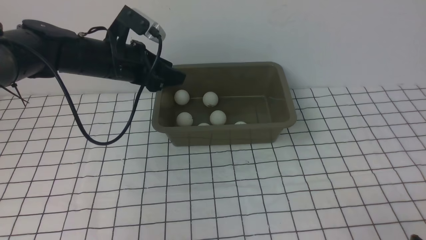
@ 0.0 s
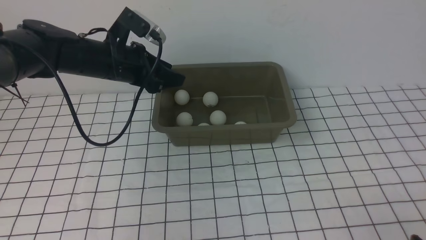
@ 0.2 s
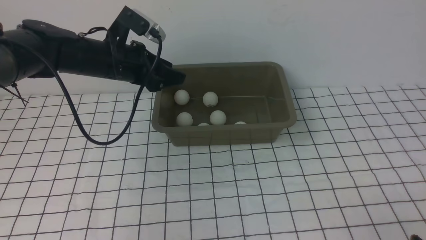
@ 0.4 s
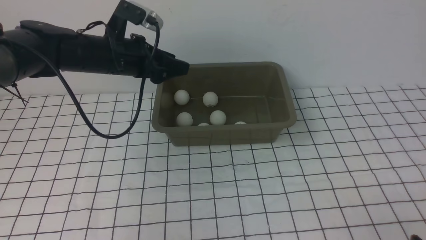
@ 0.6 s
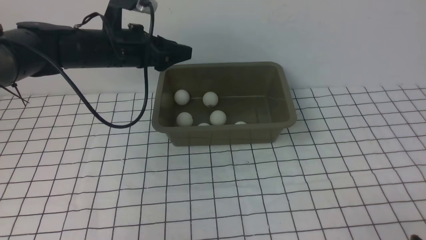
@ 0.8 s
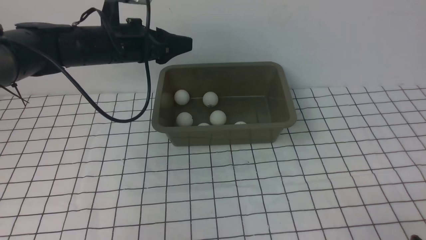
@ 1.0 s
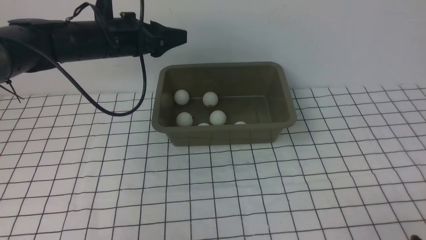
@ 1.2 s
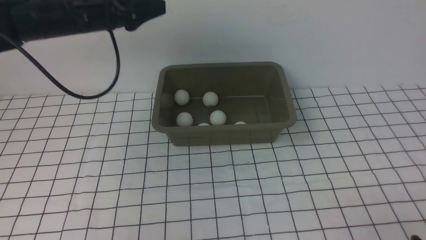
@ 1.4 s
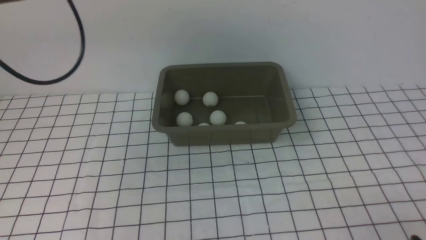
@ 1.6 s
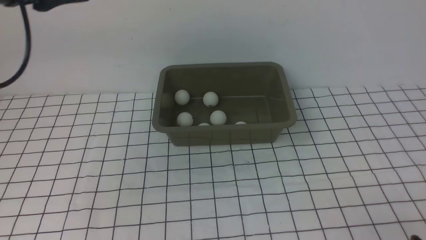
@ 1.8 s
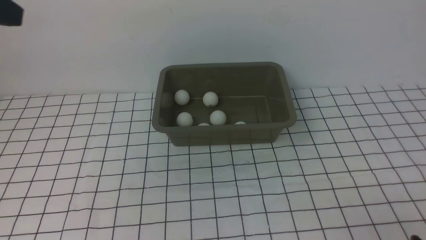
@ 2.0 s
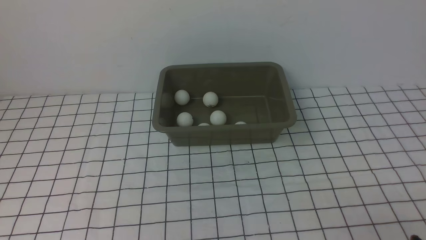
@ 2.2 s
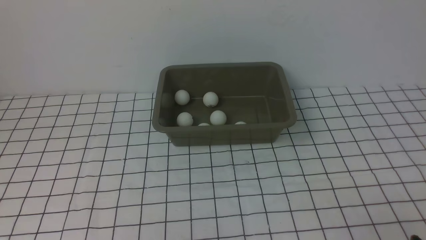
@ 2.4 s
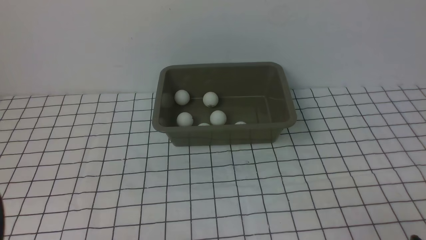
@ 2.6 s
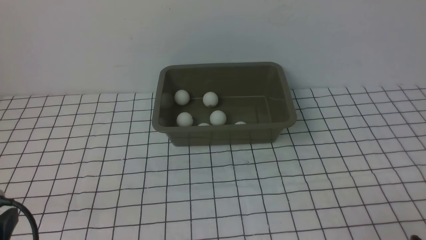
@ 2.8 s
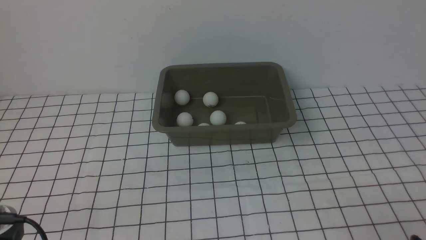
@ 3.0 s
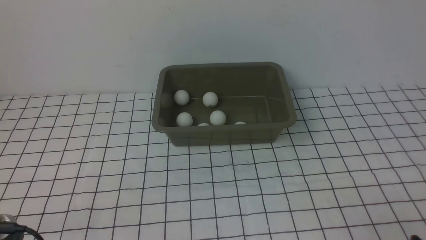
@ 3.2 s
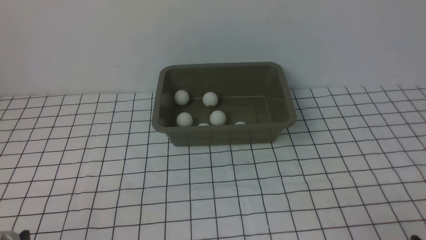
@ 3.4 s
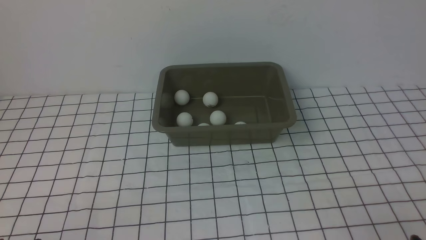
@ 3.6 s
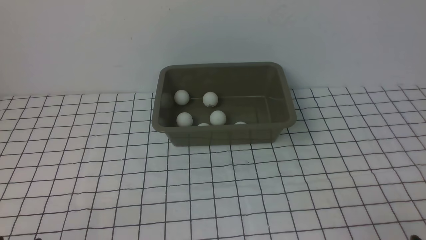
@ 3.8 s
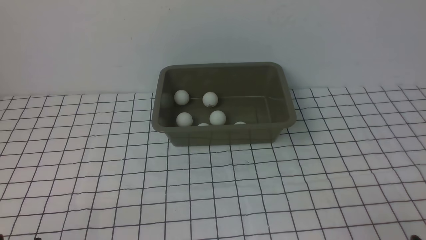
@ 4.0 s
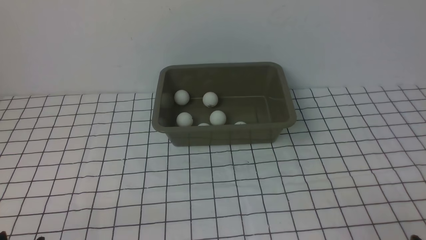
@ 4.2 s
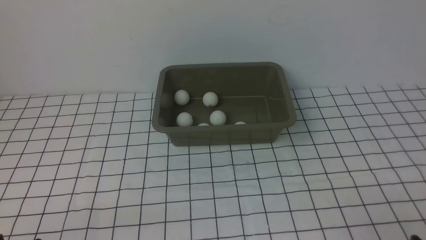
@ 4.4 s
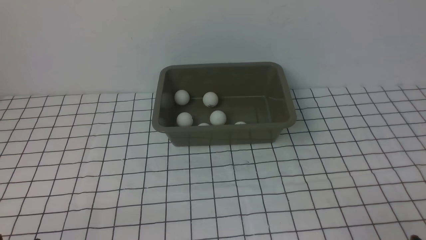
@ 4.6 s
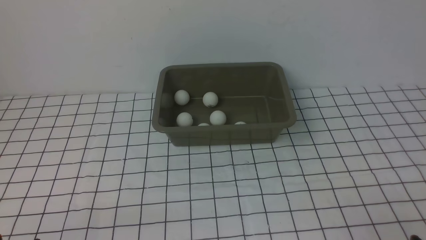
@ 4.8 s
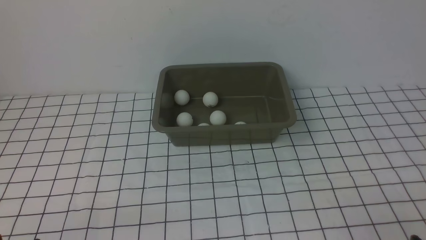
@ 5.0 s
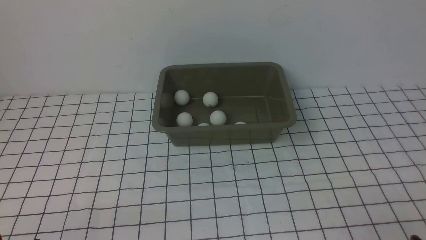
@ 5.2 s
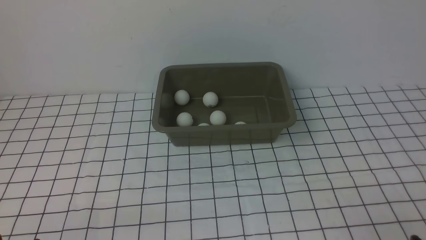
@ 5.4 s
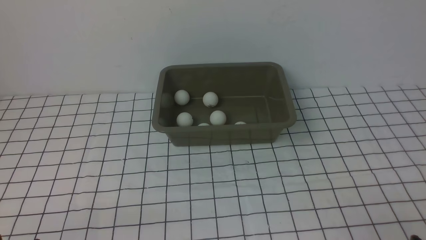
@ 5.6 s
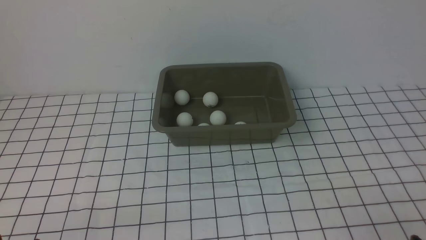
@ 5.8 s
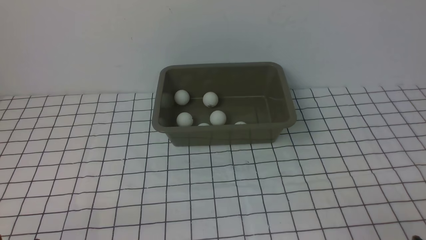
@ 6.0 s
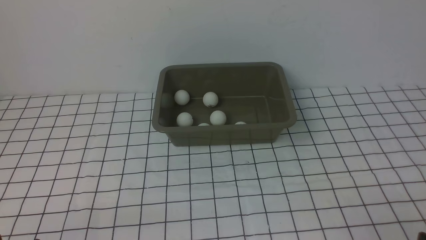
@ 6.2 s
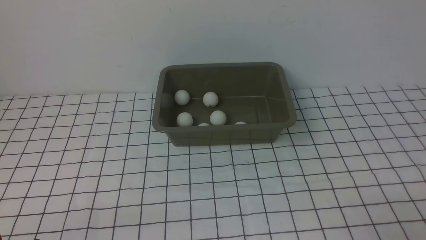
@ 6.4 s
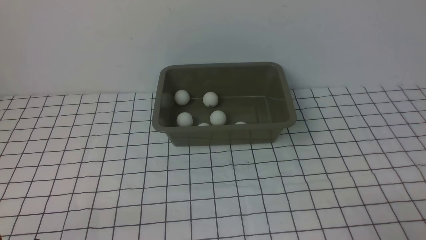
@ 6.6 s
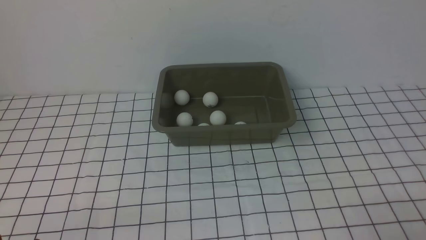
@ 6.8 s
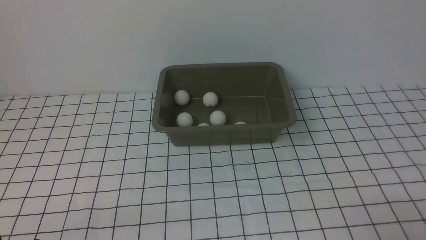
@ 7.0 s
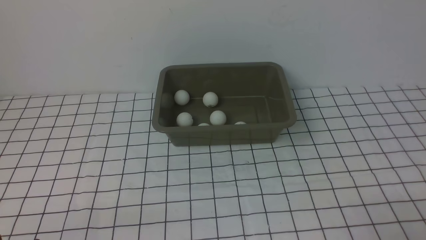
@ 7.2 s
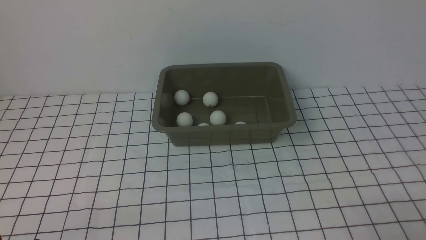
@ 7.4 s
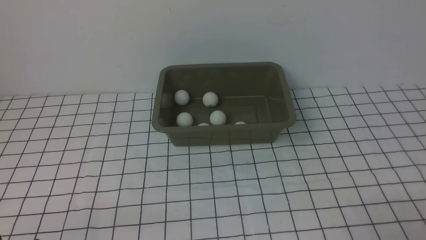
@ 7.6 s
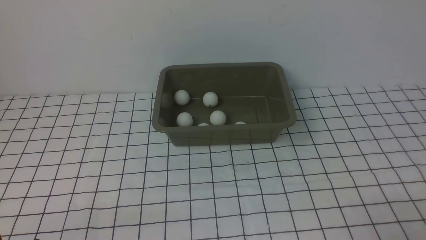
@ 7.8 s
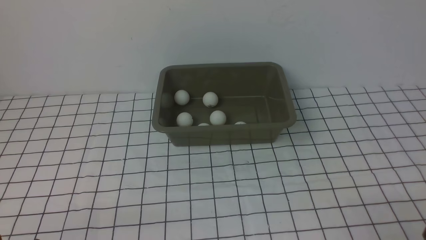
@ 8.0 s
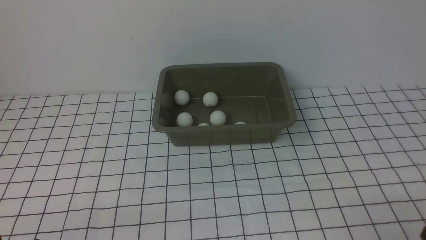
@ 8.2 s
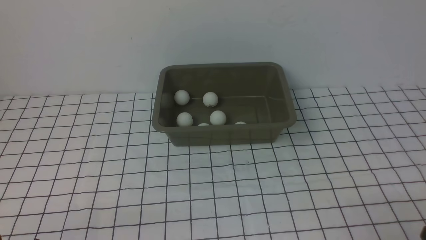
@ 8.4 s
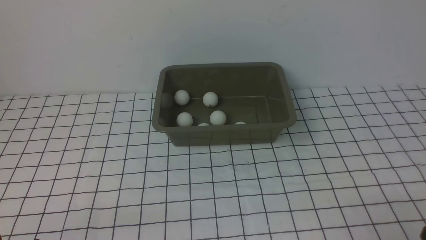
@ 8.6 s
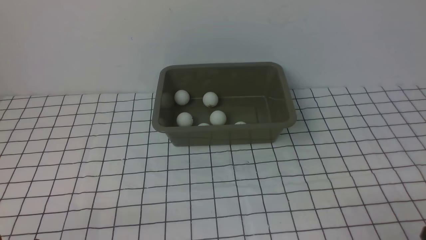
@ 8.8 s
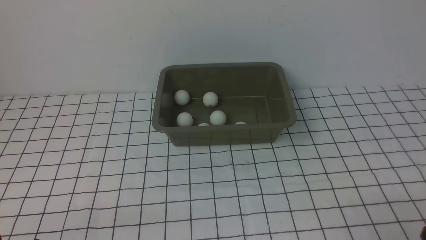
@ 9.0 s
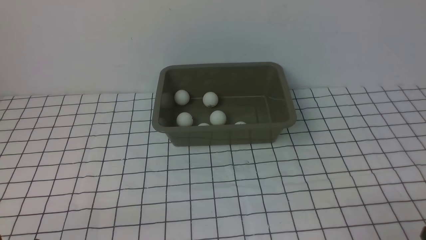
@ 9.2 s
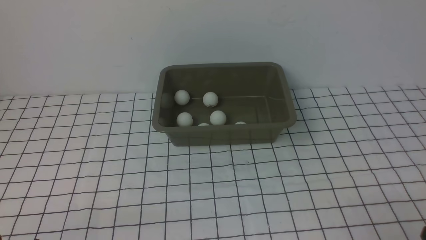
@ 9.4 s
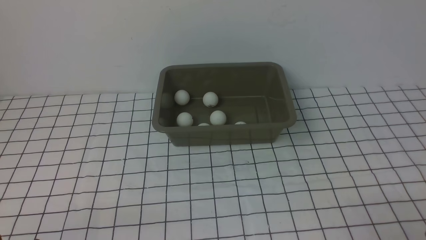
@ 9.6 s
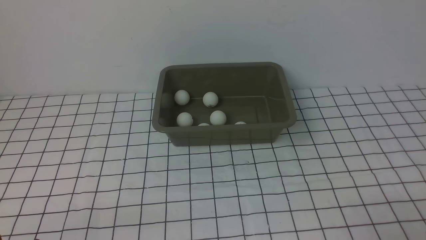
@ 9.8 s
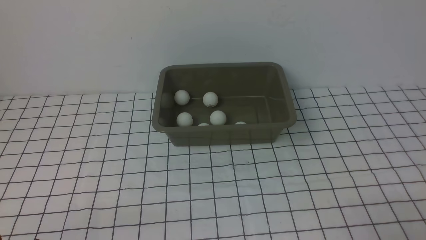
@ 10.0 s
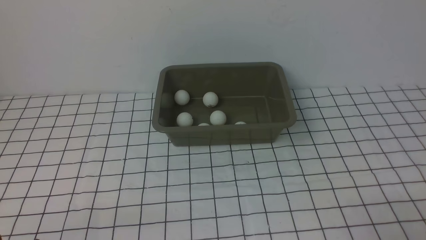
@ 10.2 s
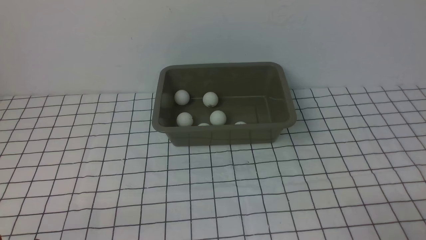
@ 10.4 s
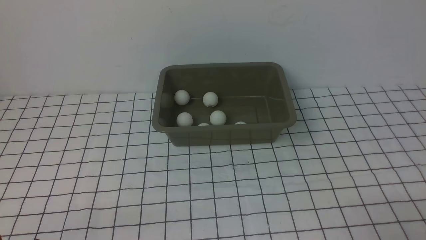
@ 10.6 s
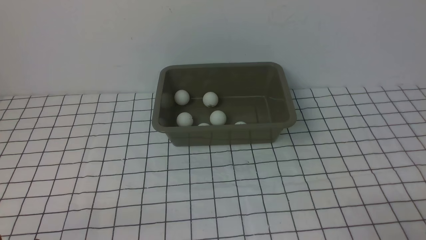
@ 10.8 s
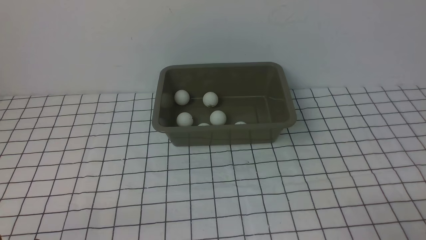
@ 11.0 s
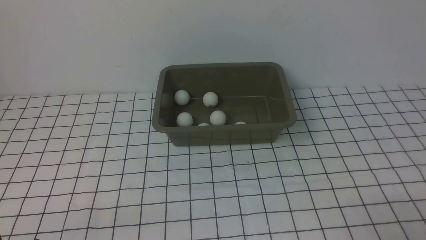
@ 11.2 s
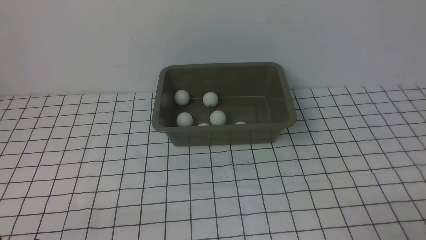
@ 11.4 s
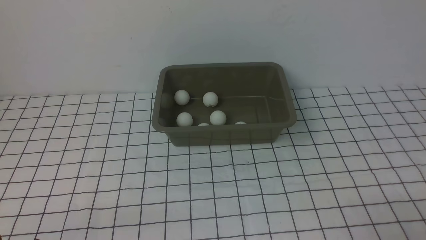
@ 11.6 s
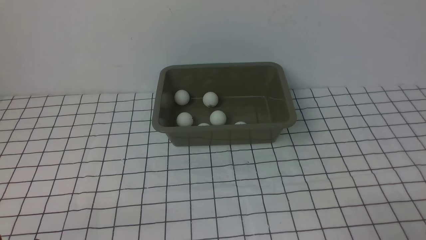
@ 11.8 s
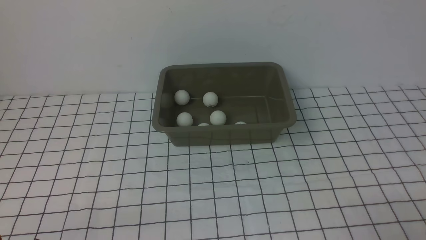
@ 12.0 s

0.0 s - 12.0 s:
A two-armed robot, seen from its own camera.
0.0 s - 1.6 s: The left gripper shifts about 15 cm upward and to the left.
1.6 s - 3.0 s: The left gripper shifts approximately 35 cm backward and downward.
3.0 s - 4.4 s: The left gripper changes place by roughly 5 cm.
4.4 s - 6.0 s: Both grippers stay put.
10.4 s - 12.0 s: Both grippers stay put.

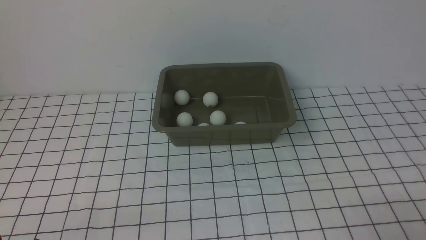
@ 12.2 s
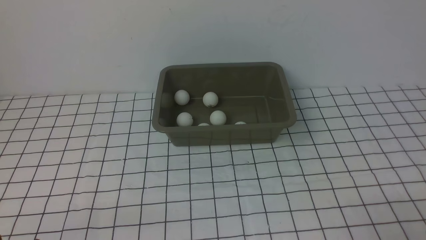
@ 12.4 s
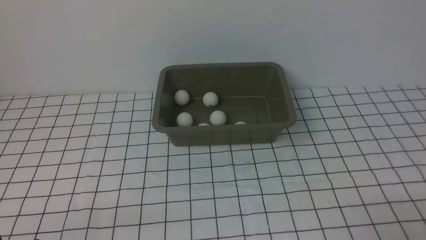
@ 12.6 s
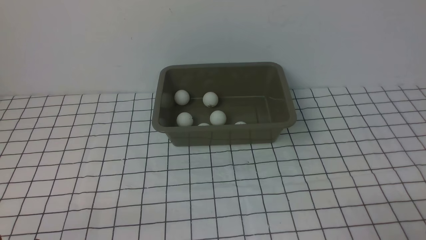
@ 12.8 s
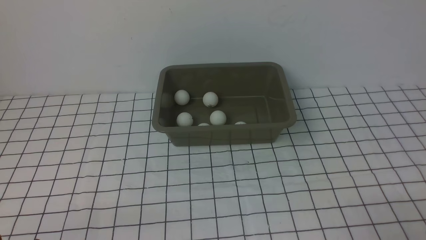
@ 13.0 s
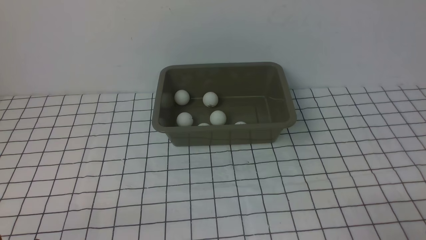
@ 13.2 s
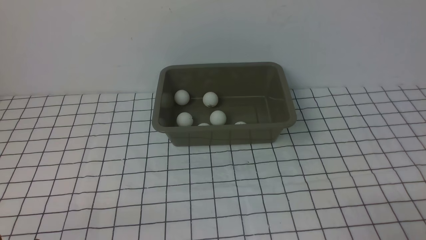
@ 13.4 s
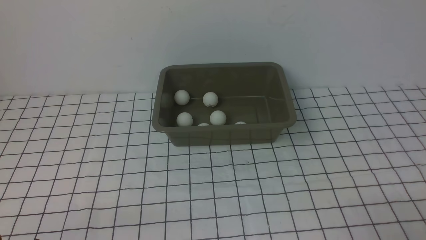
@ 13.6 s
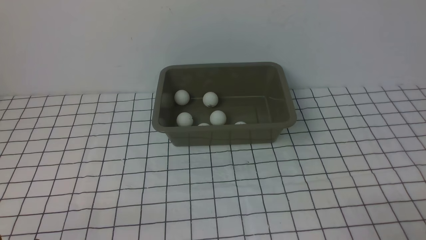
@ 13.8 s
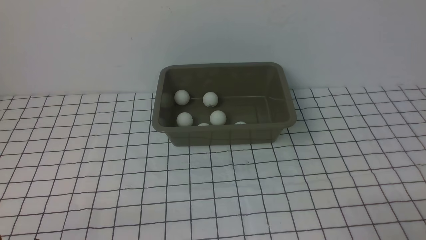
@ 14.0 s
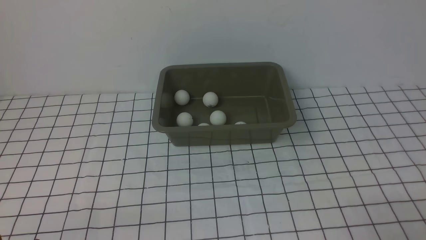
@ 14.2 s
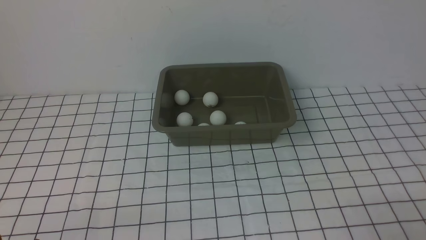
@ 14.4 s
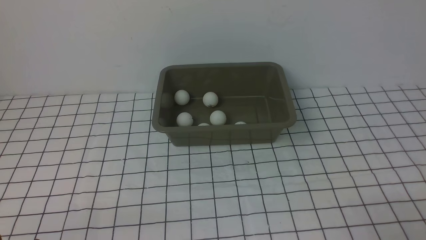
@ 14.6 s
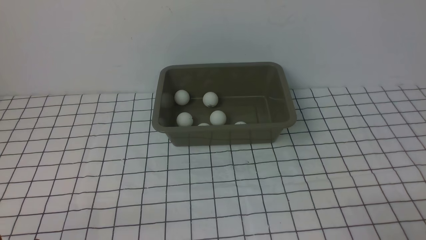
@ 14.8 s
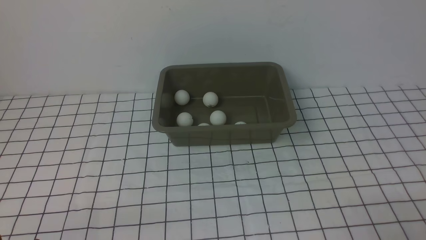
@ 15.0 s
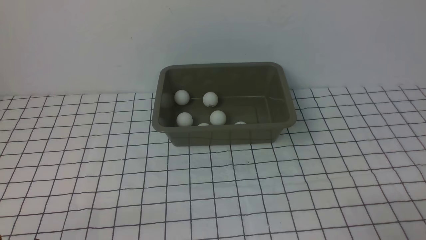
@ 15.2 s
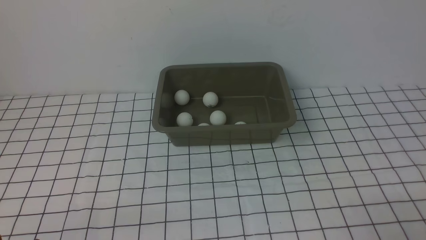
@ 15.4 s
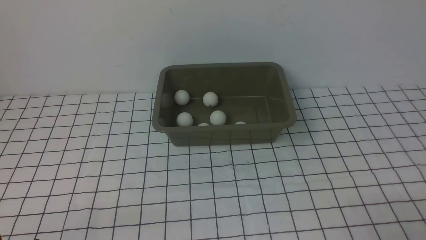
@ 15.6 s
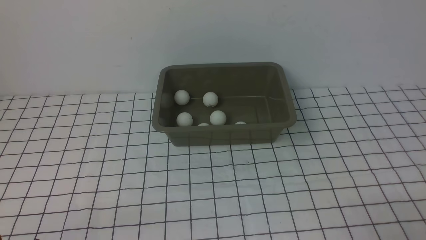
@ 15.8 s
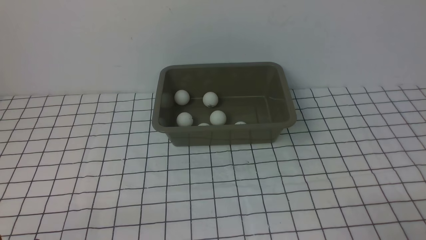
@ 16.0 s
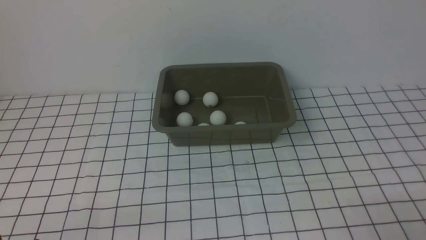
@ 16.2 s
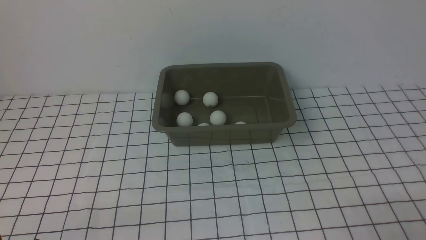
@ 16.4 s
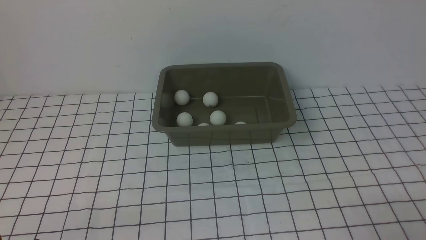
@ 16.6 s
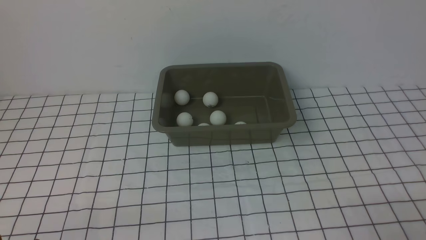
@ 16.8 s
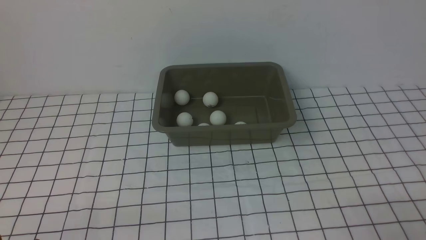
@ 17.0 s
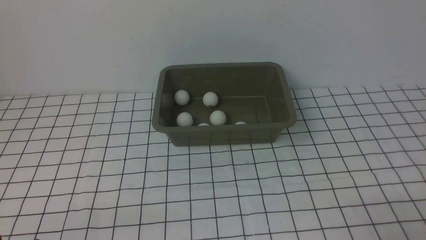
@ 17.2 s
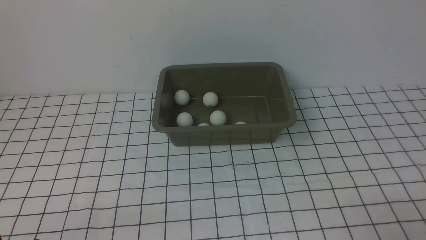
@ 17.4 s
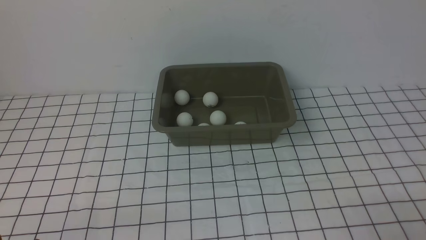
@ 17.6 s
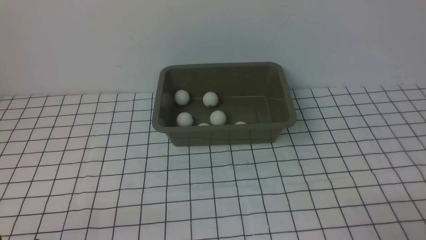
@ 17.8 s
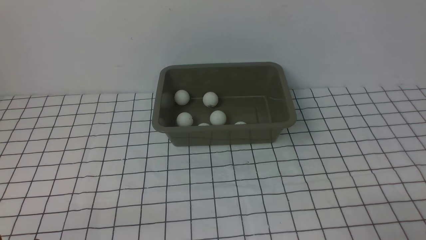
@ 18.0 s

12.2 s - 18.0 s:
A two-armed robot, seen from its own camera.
12.2 s - 18.0 s: Neither gripper changes place.
